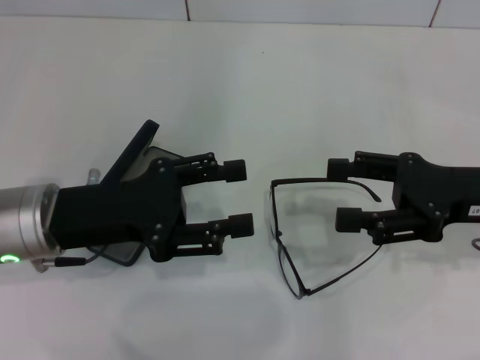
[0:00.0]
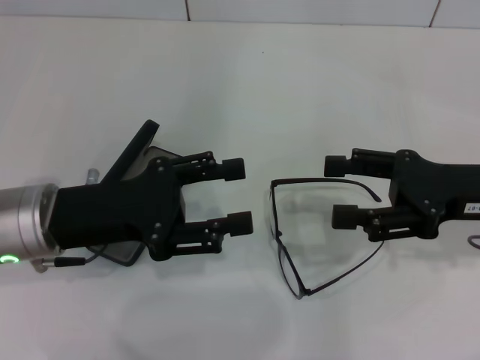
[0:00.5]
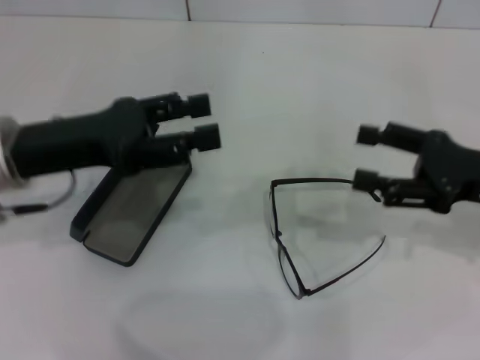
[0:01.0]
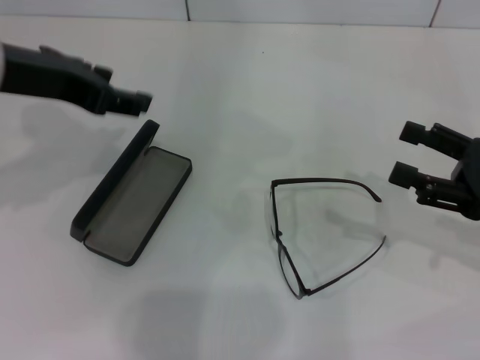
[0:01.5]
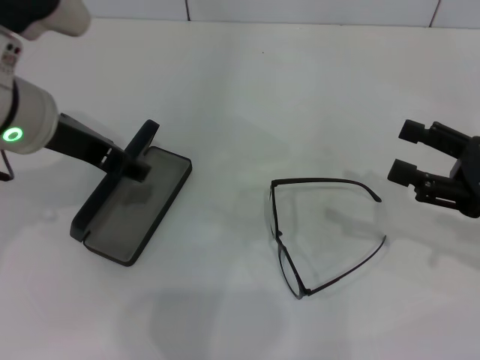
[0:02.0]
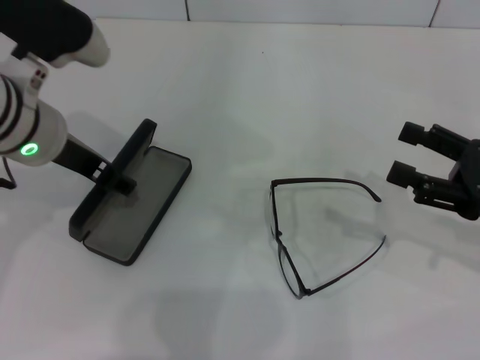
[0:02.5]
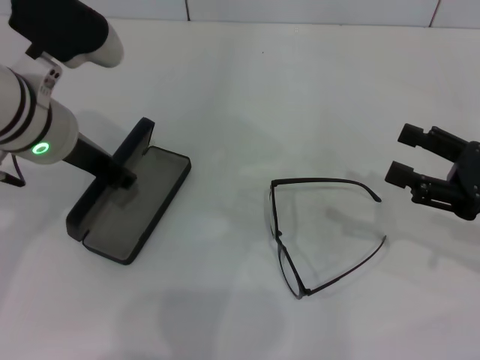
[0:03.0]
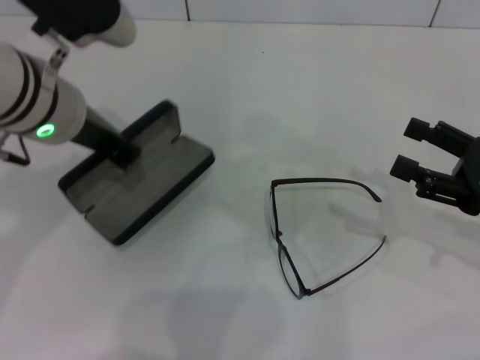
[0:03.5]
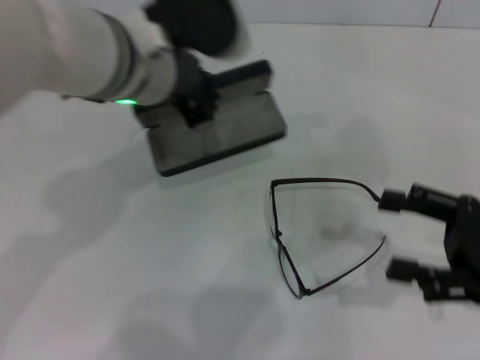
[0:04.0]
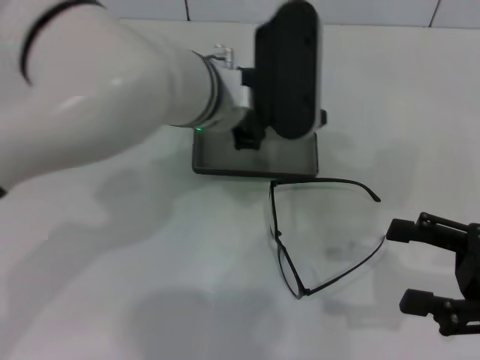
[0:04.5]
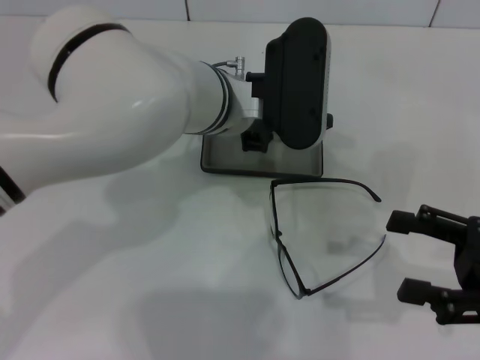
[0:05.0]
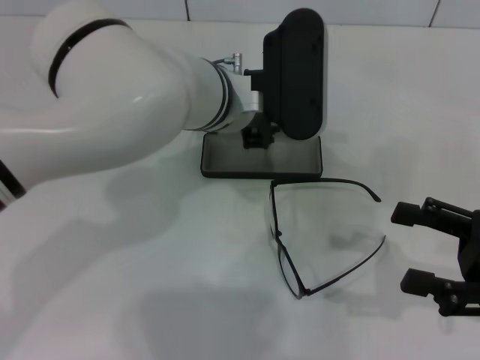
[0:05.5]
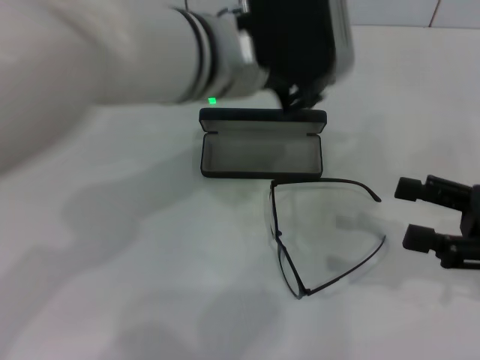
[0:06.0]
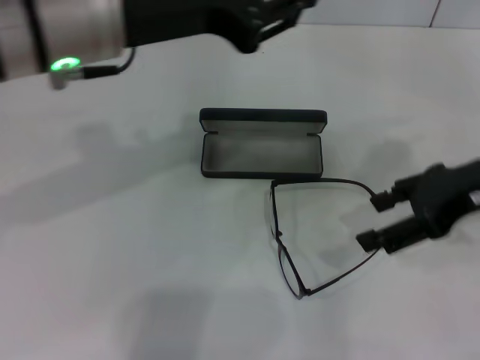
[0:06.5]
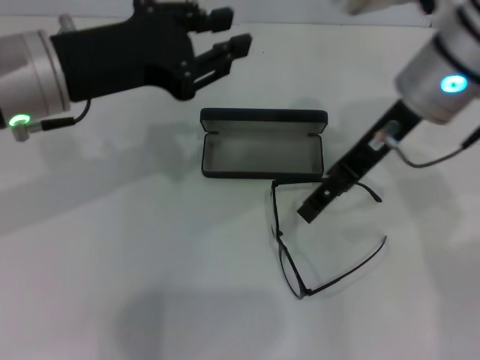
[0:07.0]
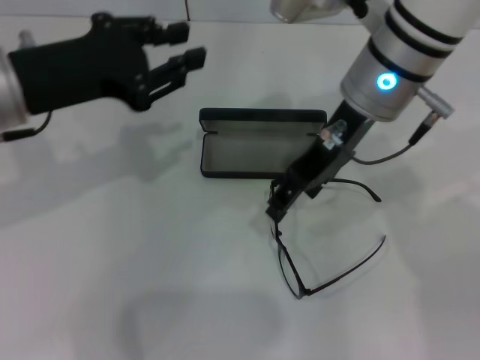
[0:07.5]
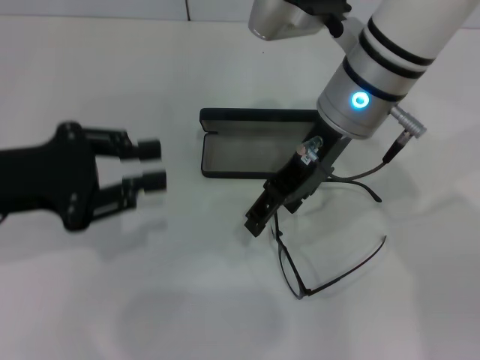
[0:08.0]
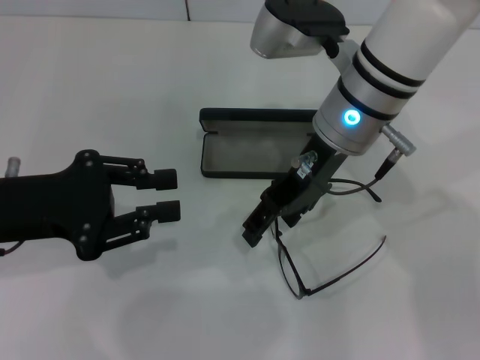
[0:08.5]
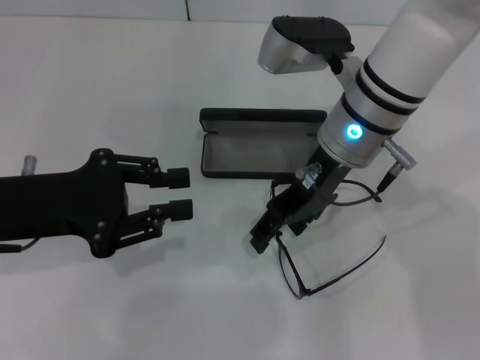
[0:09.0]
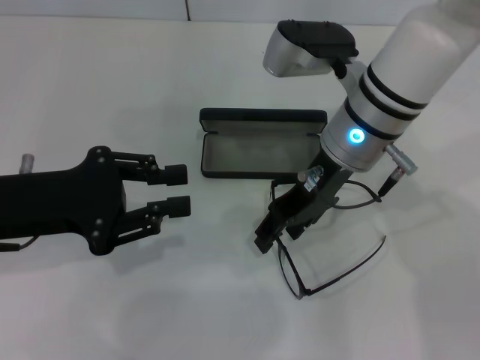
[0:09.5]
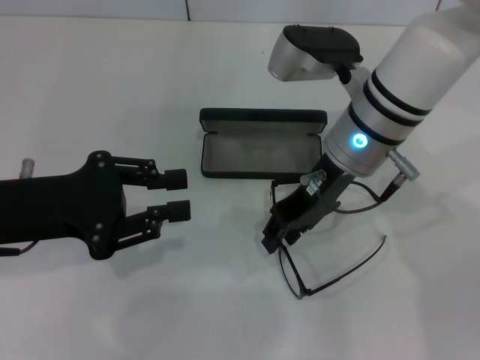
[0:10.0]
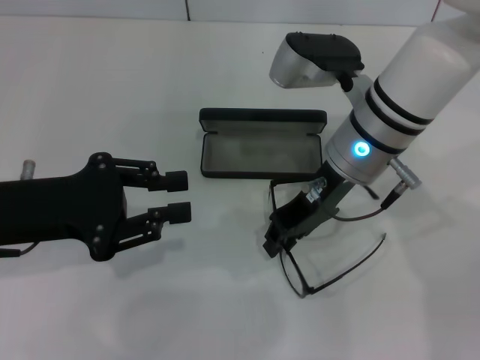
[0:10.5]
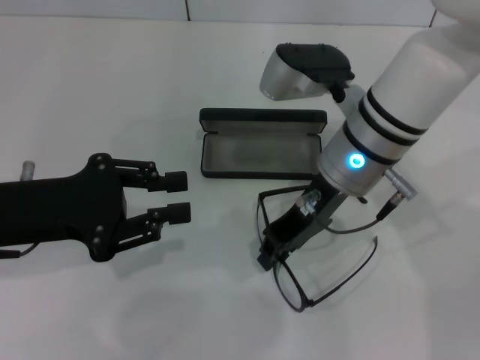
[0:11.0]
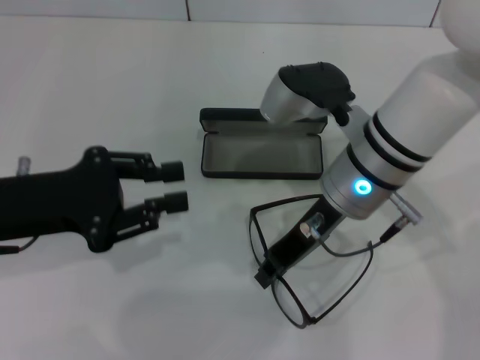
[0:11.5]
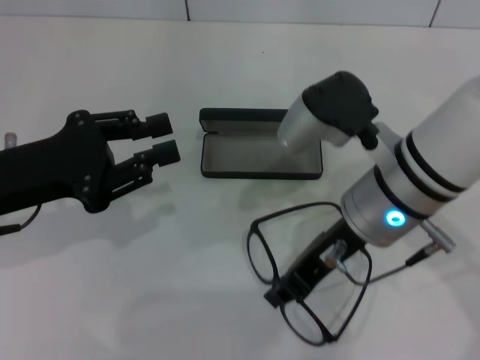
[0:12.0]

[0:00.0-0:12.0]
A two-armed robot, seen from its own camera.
Step, 0:00.0 to 0:03.0: Grab the glasses case with your left hand.
Step, 0:03.5 to 0:05.5: Place the glasses case in the center of the table with your left hand.
Step, 0:06.0 to 0:11.5: Grab the eyeglass frame with your right hand.
0:00.0 to 0:02.0: The left gripper moves upward and forward, about 10 cm. The right gripper moves roughly 5 cm.
0:02.0 to 0:04.0: The left gripper goes about 10 cm to the right, and closes up.
0:04.0 to 0:06.0: The left gripper travels to the right by some 5 cm, reaches approximately 5 cm downward, then returns, and opens its fingers.
0:06.0 to 0:08.0: The left gripper travels to the left by about 25 cm; the right gripper travels to the left and forward by about 25 cm.
0:08.0 to 0:10.0: The right gripper shifts by about 5 cm.
0:10.0 to 0:12.0: The right gripper goes roughly 5 cm backward, and closes up.

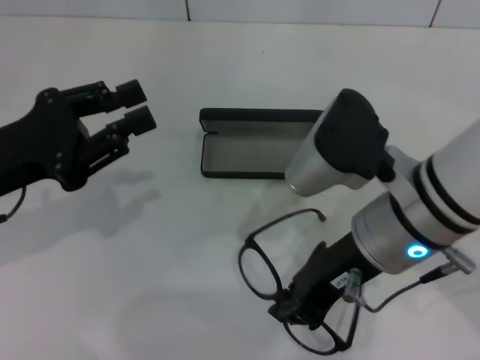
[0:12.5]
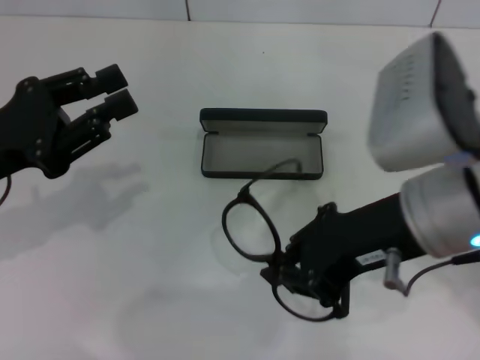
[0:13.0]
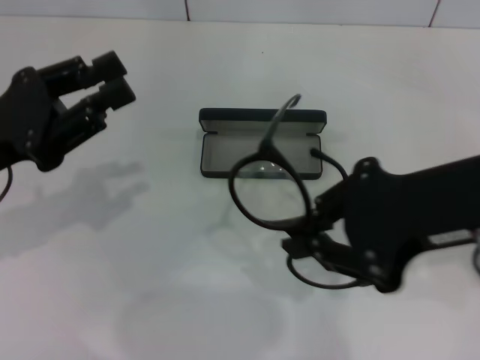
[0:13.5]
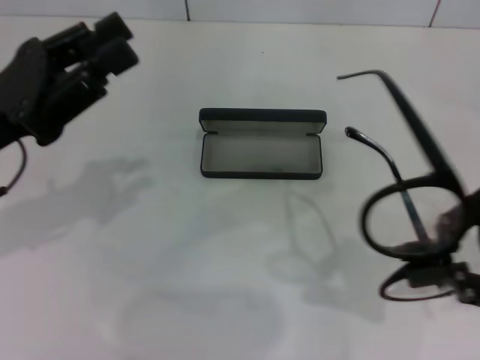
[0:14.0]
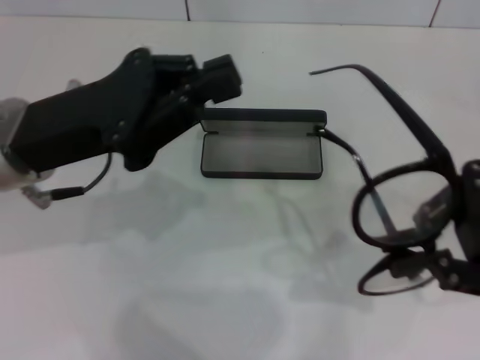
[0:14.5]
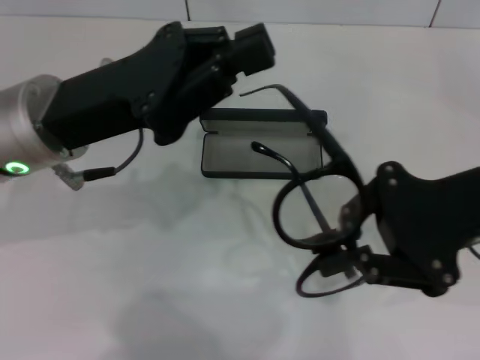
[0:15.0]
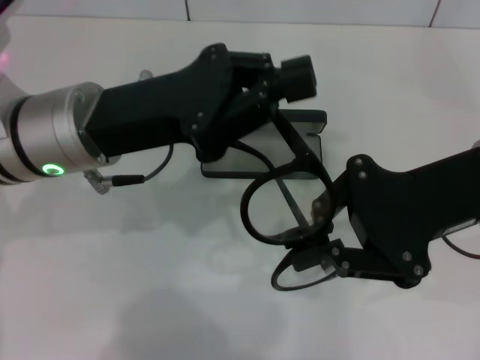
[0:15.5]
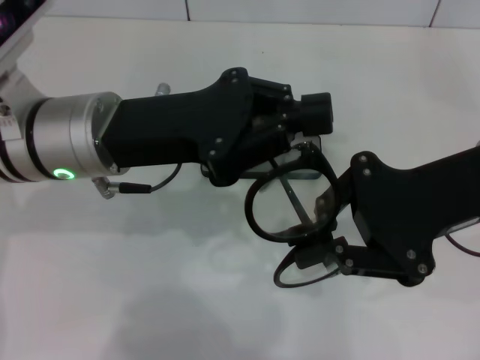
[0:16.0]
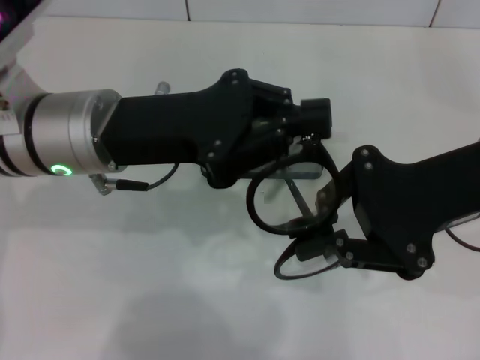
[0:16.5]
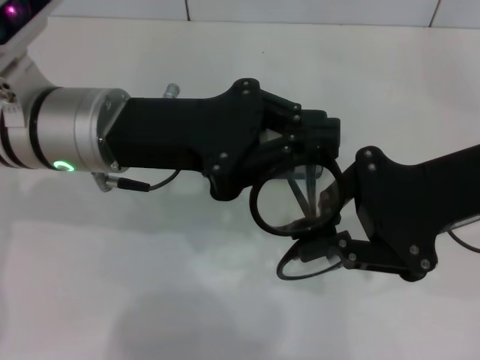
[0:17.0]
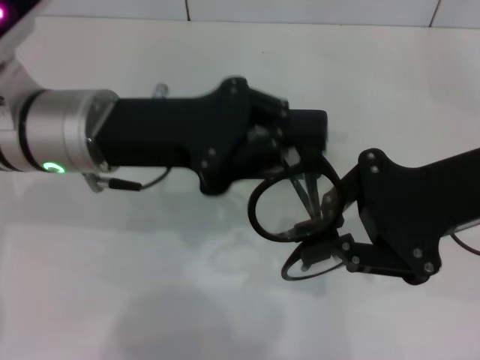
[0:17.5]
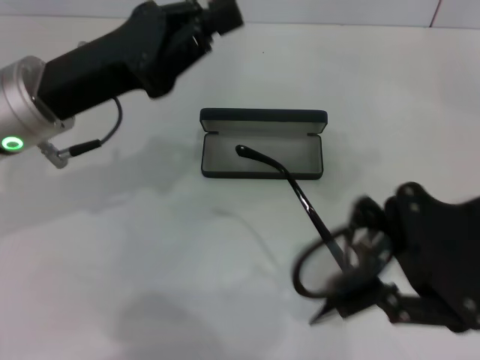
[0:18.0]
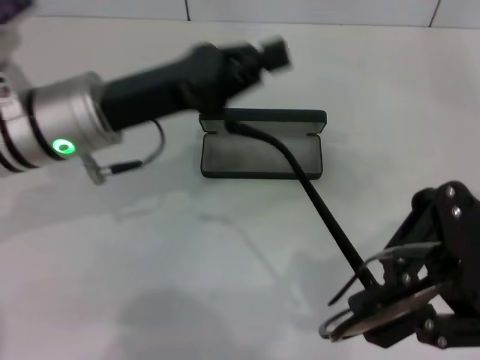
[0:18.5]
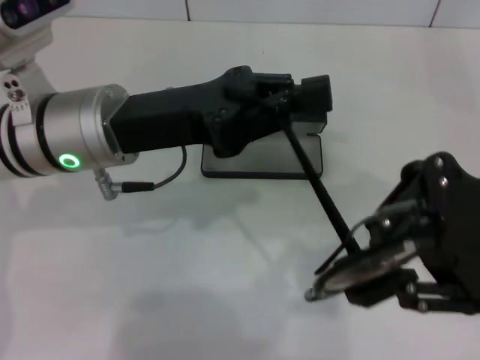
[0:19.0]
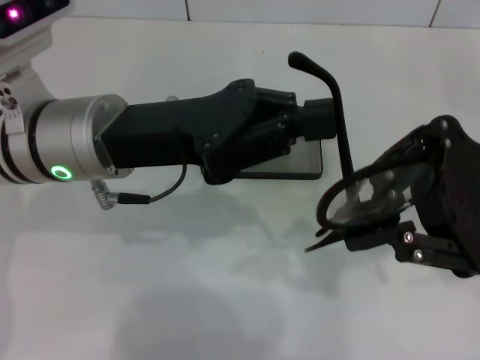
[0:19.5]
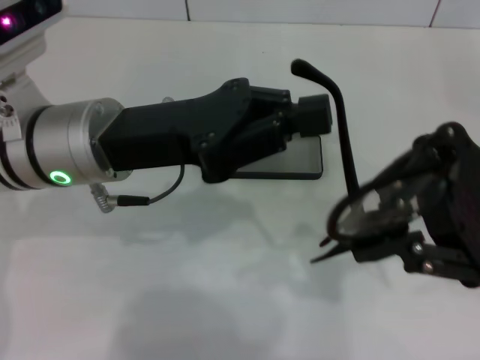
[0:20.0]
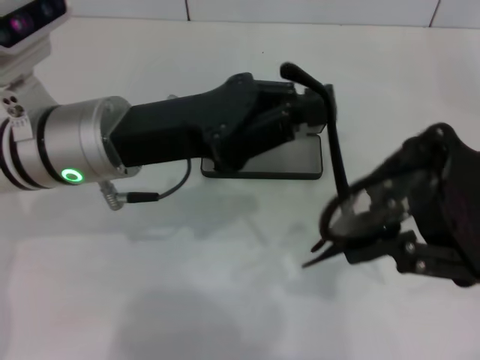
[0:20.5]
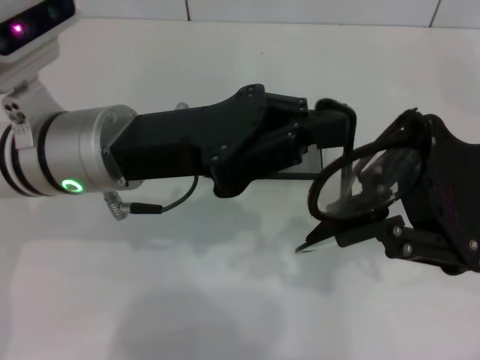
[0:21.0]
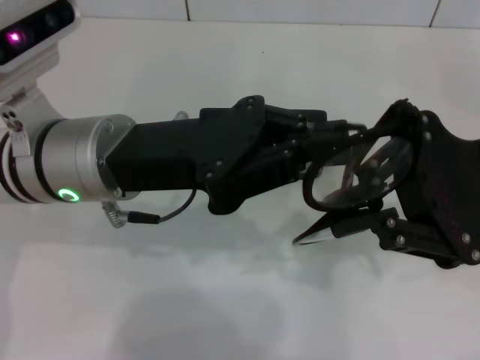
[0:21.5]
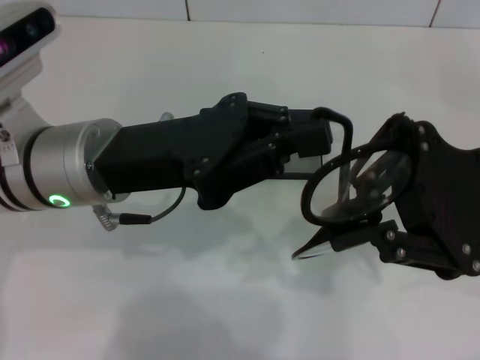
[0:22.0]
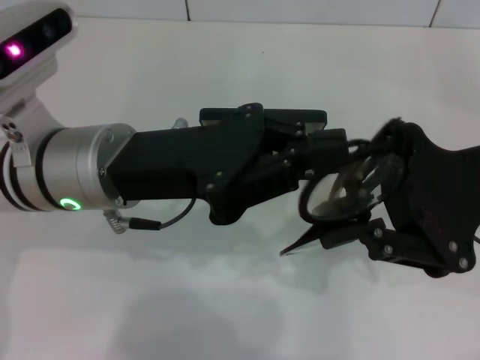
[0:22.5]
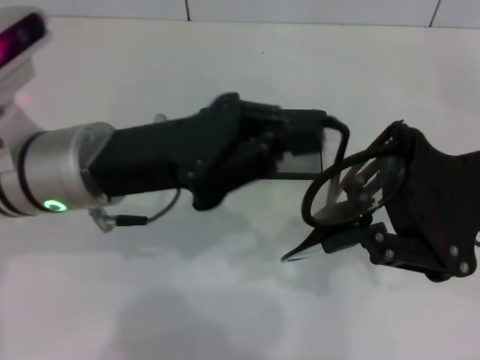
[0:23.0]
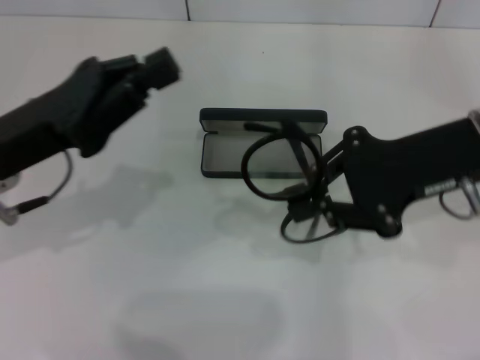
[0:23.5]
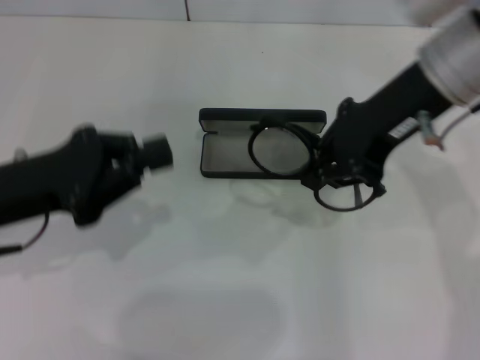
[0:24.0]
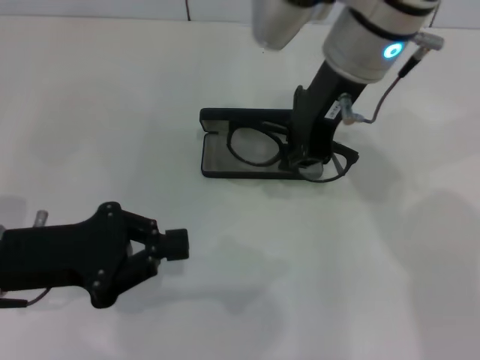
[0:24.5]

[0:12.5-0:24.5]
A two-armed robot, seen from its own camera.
Step, 0:12.5 to 0:22.5: Fold the frame with your left hand.
0:12.5 to 0:14.5: The right gripper is displaced to the right by about 15 cm, while the left gripper heads to the right, covering some 5 cm.
0:14.5 to 0:16.5: The left gripper moves some 5 cm; the right gripper travels to the left by some 5 cm.
0:22.5 to 0:24.5: The left gripper shifts about 15 cm to the left, downward and backward; the right gripper shifts about 20 cm to the left and forward.

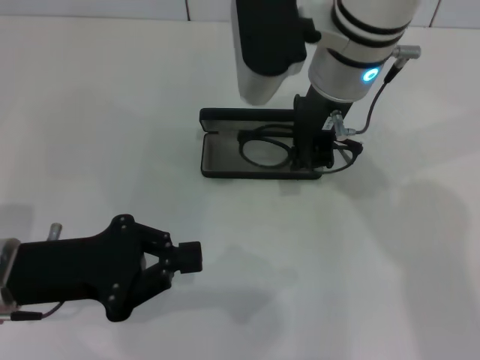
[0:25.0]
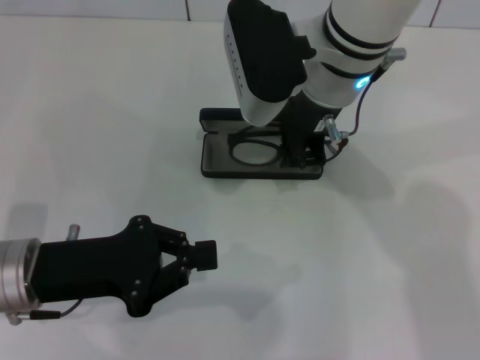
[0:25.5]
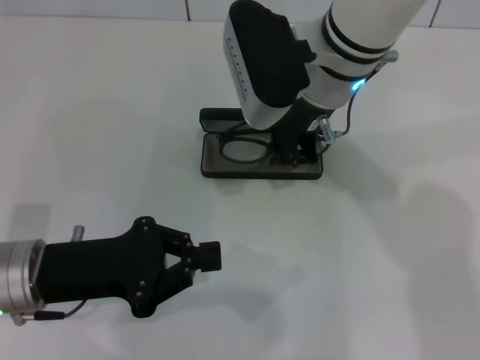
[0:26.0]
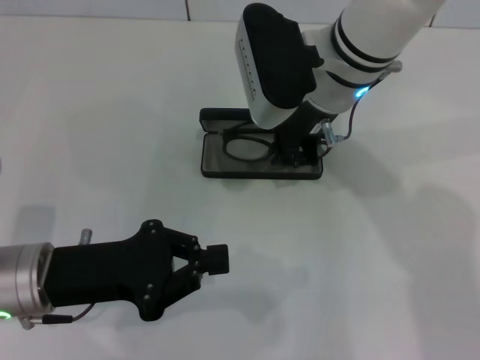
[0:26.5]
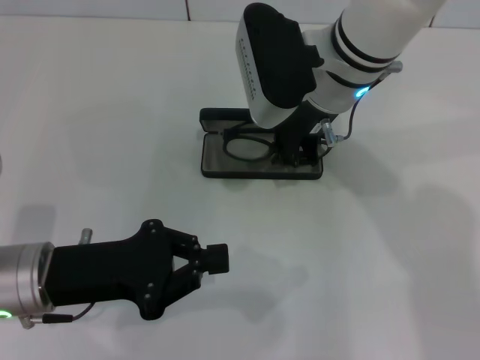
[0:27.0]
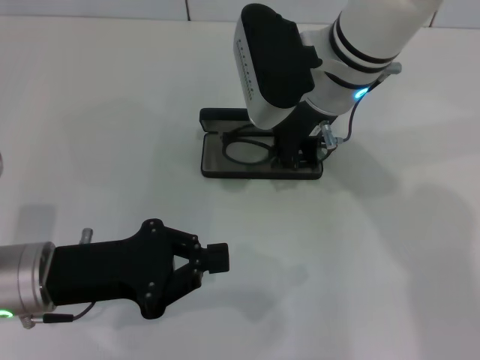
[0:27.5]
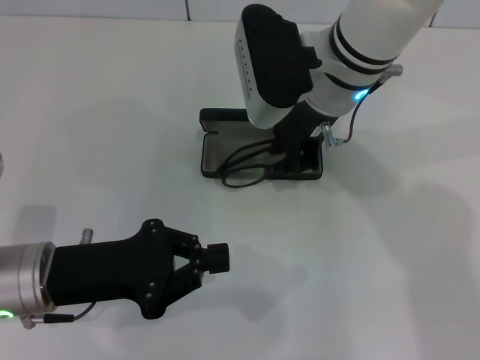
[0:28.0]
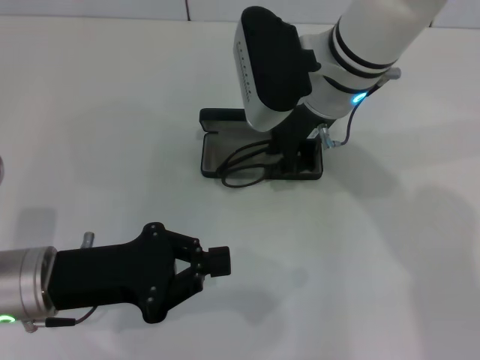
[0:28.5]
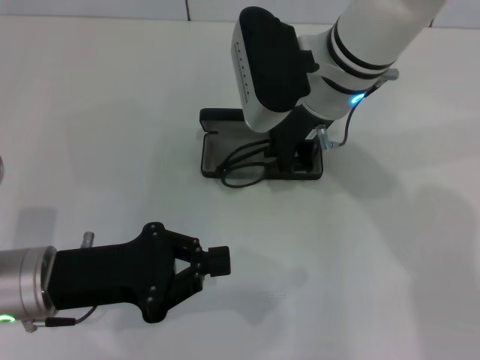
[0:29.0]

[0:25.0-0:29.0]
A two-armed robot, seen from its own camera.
0:25.0 to 0:27.0: The grippers stay close to where they were, moving slightly.
0:27.0 to 0:29.0: The two grippers keep their place.
